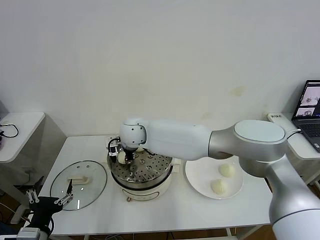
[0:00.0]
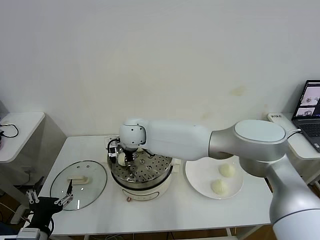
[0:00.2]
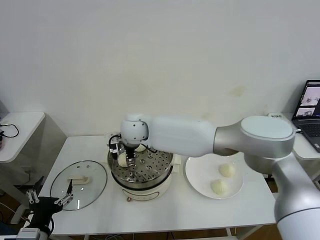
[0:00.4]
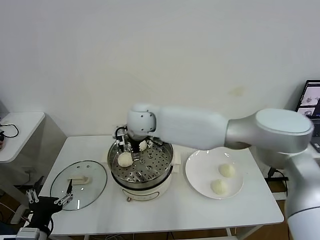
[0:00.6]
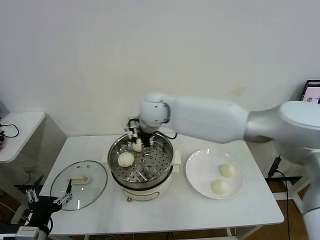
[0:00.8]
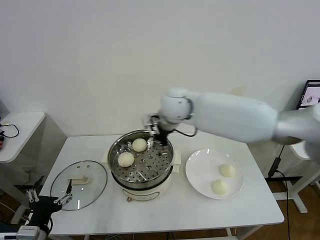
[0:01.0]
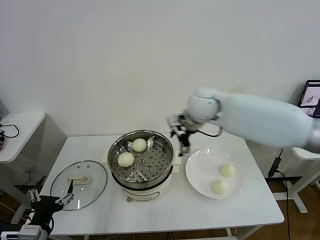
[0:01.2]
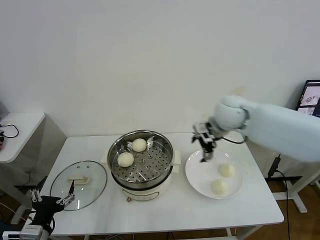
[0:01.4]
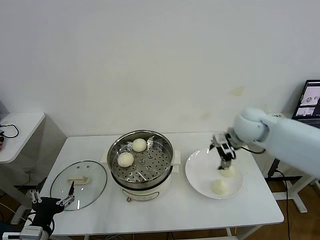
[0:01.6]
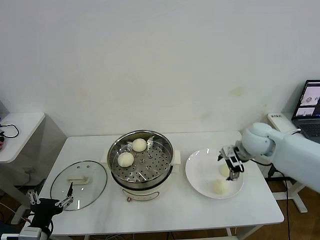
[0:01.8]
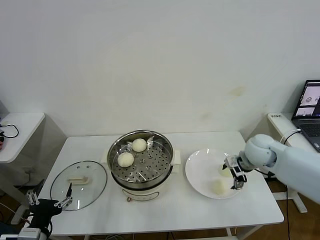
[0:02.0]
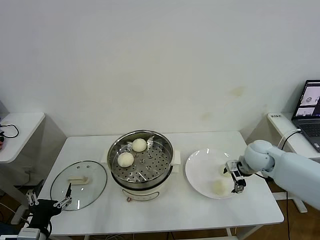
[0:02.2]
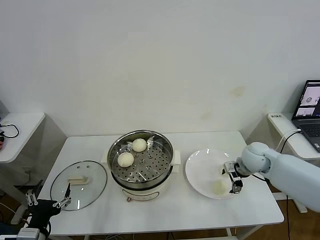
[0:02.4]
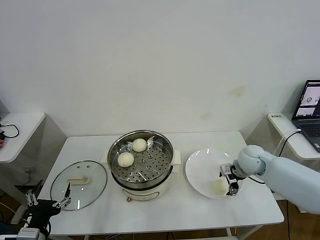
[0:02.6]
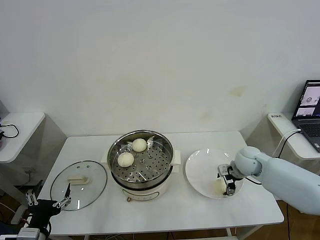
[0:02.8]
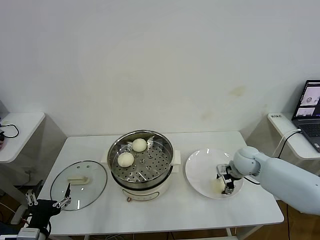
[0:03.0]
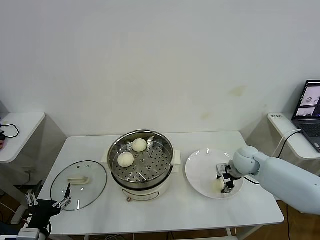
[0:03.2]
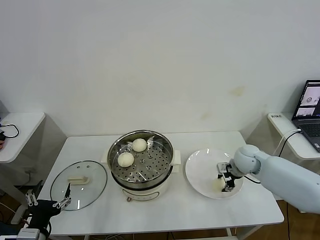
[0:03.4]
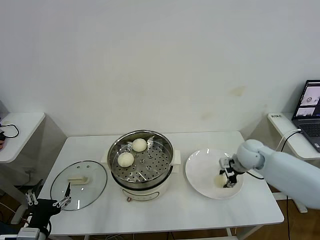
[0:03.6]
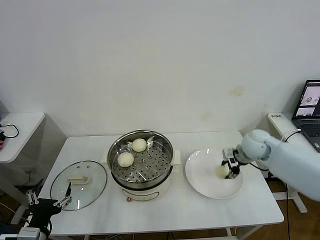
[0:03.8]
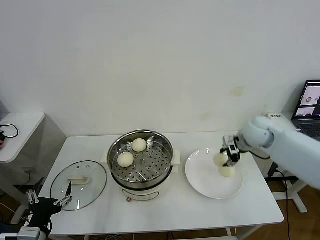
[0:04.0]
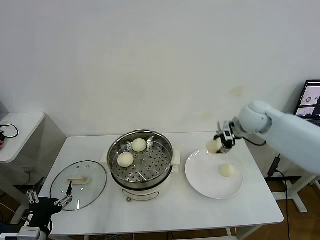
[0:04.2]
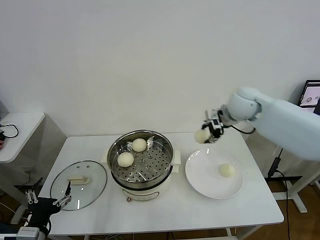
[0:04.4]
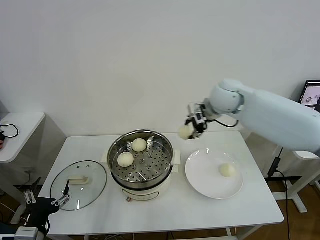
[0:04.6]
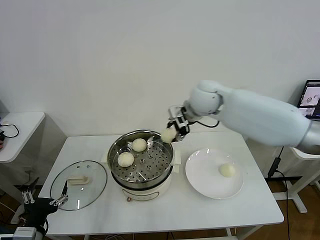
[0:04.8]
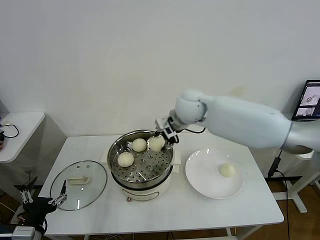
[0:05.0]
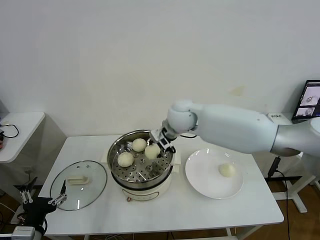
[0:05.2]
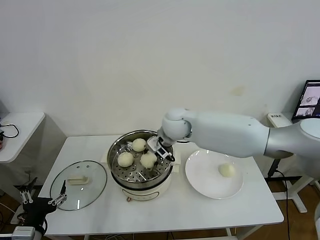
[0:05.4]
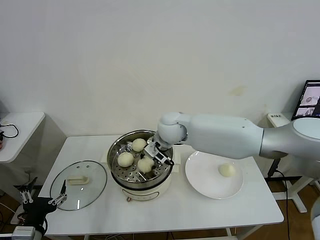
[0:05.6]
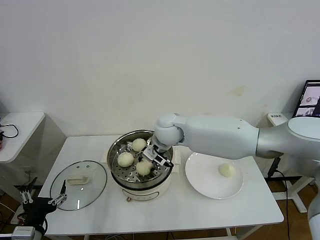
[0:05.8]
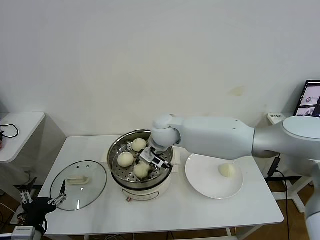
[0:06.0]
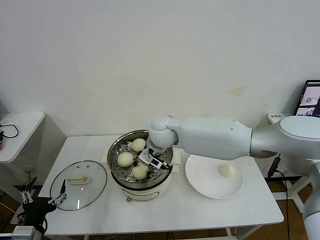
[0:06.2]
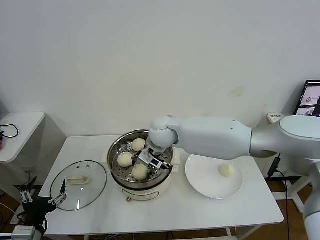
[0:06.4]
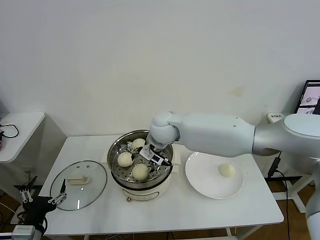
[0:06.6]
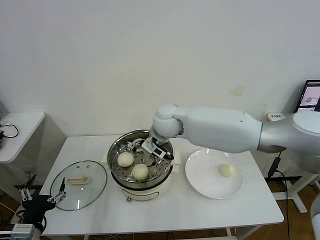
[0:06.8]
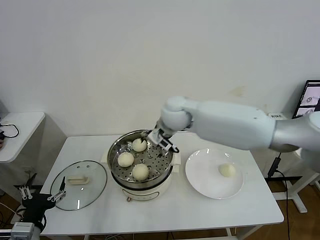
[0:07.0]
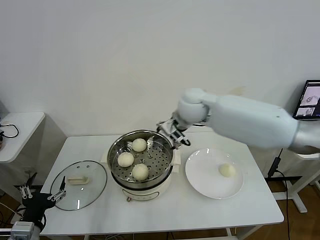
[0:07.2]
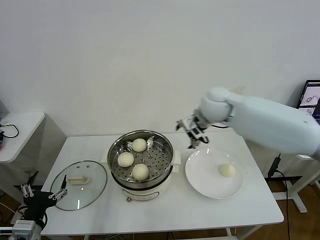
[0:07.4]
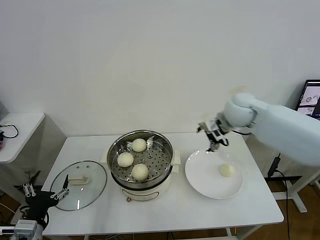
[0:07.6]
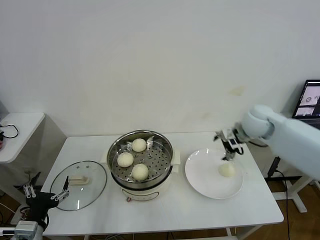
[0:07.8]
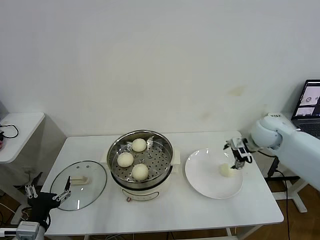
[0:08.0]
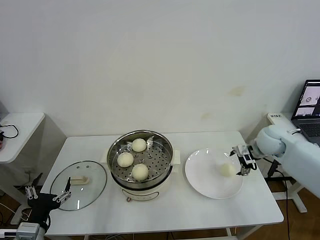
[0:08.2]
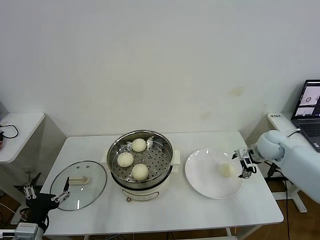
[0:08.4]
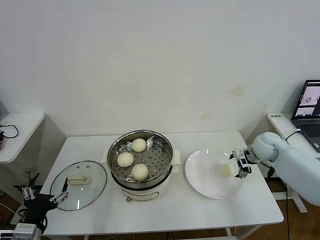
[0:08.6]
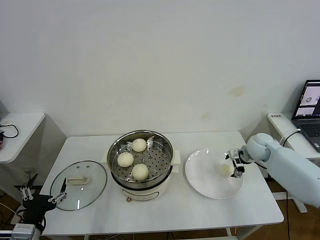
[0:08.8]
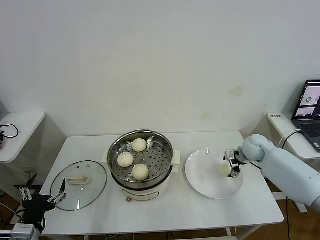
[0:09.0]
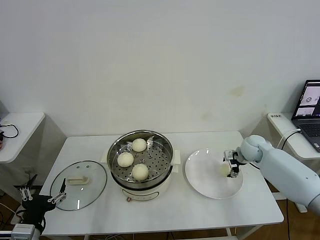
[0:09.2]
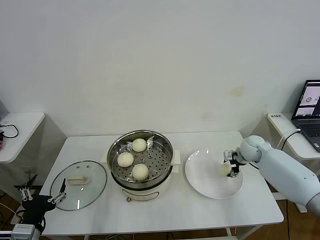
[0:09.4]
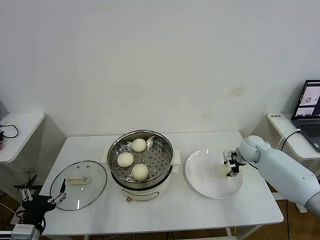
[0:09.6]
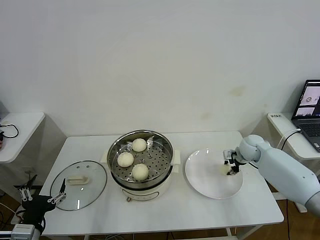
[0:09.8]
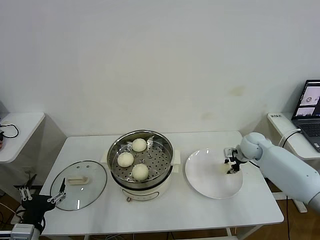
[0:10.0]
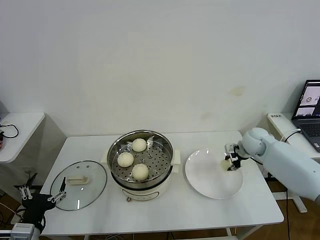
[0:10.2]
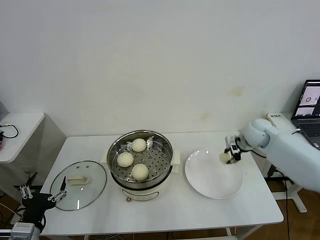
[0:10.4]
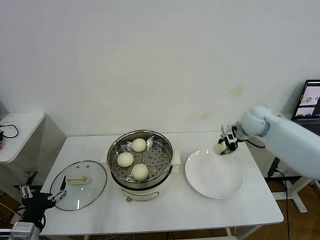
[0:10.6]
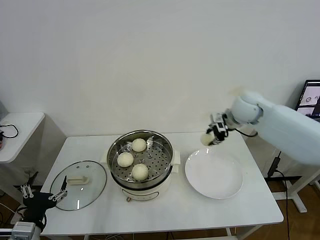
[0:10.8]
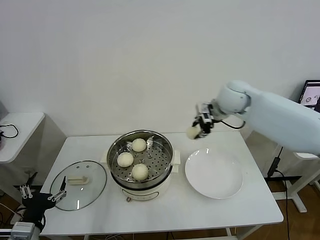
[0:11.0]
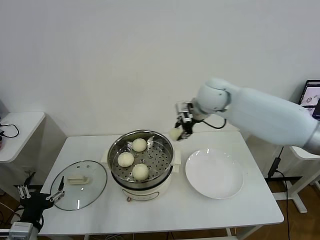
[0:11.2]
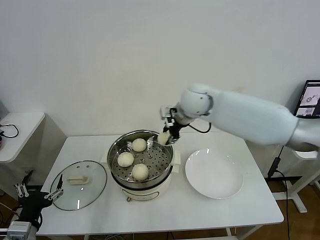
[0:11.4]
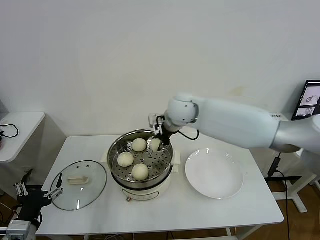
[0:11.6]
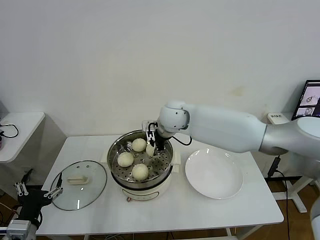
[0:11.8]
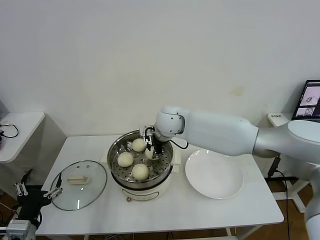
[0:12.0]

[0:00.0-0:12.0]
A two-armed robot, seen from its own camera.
Task of the whole recording: take steamed baozi put them in steamer then cover it.
Step, 0:00.6 to 0:03.2: Grasp the baozi in the plate with right gripper.
Step, 0:03.6 to 0:06.6: Place the baozi on the steamer with right gripper.
Step, 0:06.8 to 0:09.8: Grasp the baozi in the plate with right gripper.
0:00.0 to 0:01.6: The right gripper goes about 40 cm to the right, and opens.
0:01.6 to 0:03.0: The right gripper is displaced downward by approximately 15 cm, and closes up.
0:03.0 to 0:04.4: The right gripper moves upward, approximately 20 cm.
0:04.4 to 0:06.0: The right gripper is displaced to the left and downward by approximately 25 cm.
0:06.0 to 0:07.6: The right gripper shifts about 25 cm to the right, and opens up.
0:07.6 to 0:09.0: The right gripper moves downward and to the right, about 20 cm.
0:09.0 to 0:10.4: The right gripper shifts roughly 10 cm upward, and closes.
0:10.4 to 0:12.0: The right gripper goes about 30 cm to the left.

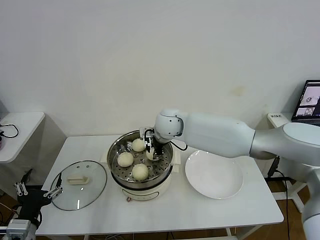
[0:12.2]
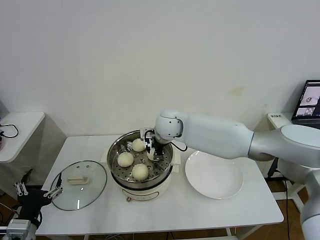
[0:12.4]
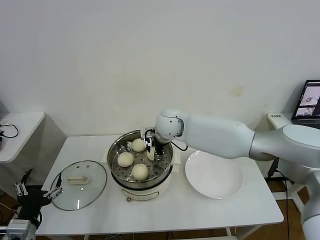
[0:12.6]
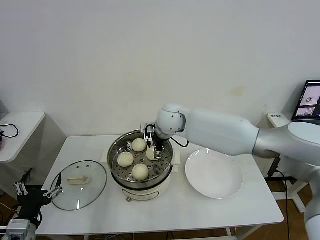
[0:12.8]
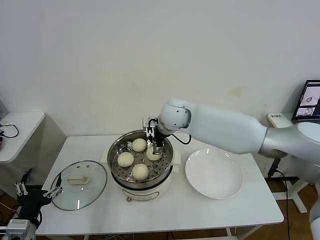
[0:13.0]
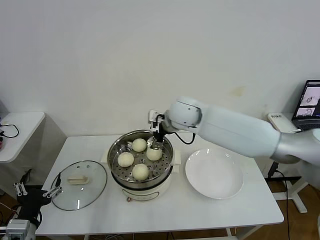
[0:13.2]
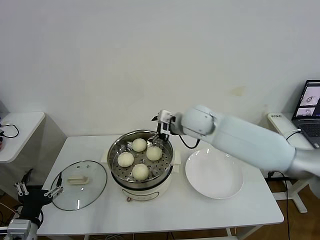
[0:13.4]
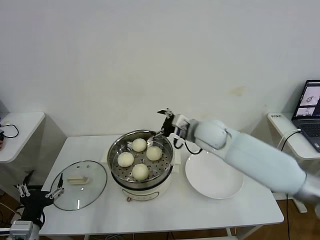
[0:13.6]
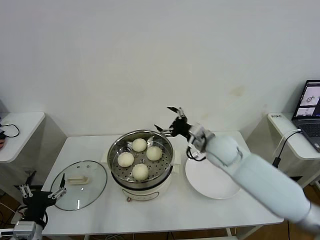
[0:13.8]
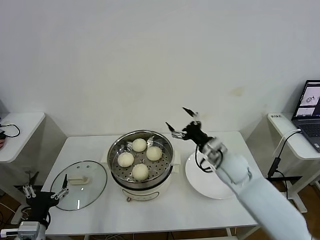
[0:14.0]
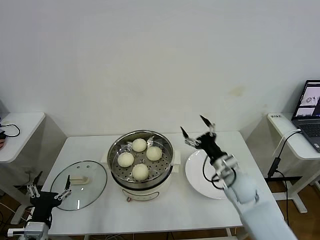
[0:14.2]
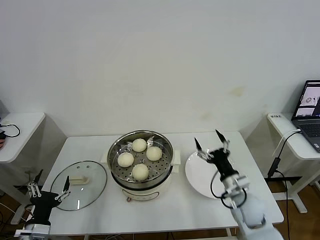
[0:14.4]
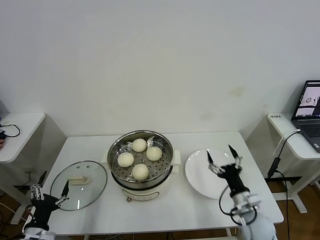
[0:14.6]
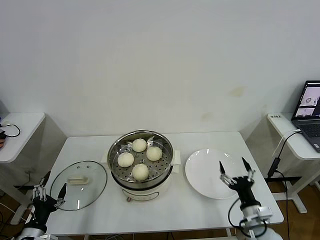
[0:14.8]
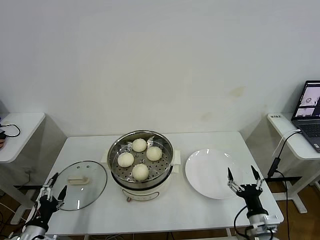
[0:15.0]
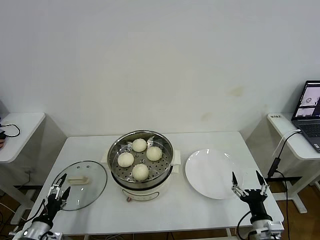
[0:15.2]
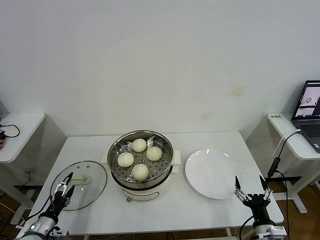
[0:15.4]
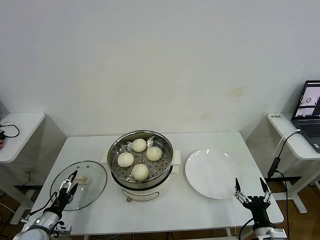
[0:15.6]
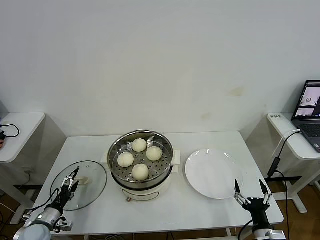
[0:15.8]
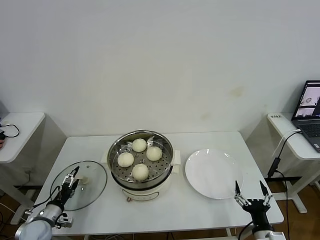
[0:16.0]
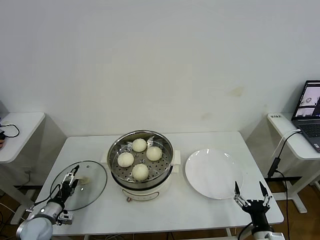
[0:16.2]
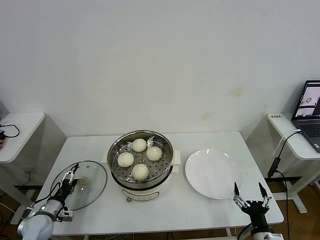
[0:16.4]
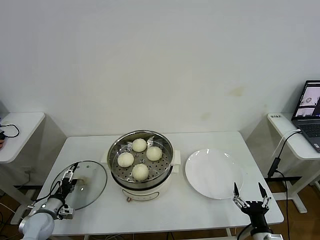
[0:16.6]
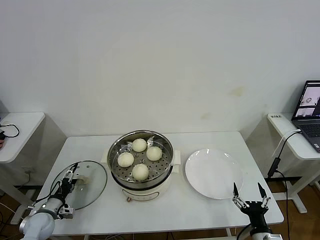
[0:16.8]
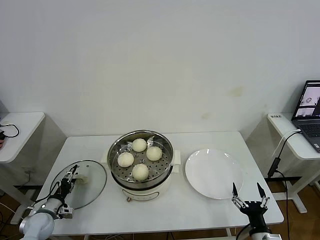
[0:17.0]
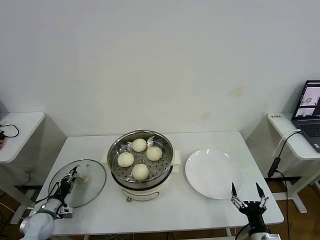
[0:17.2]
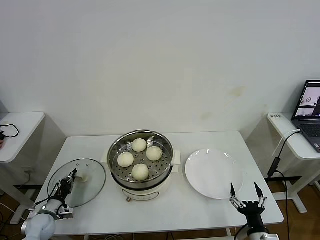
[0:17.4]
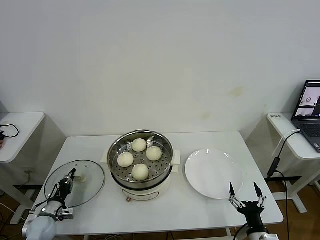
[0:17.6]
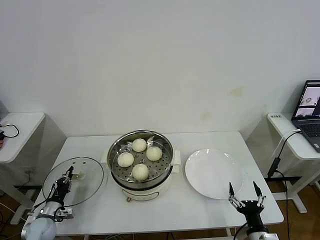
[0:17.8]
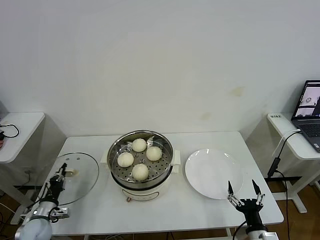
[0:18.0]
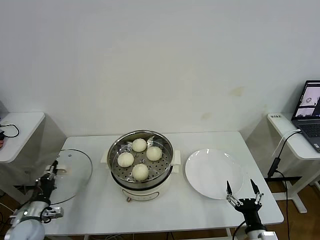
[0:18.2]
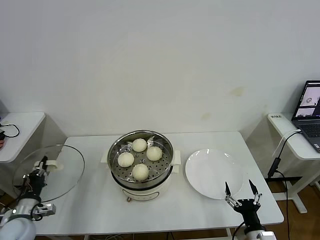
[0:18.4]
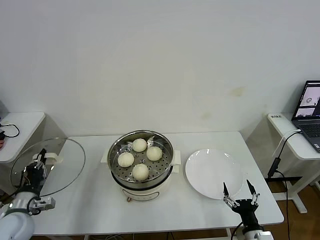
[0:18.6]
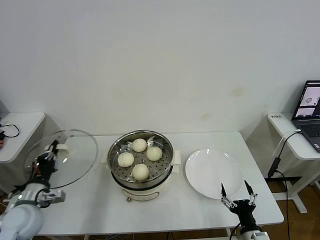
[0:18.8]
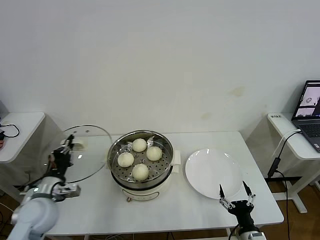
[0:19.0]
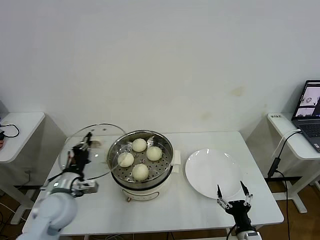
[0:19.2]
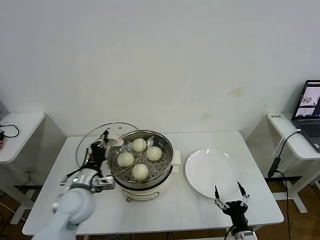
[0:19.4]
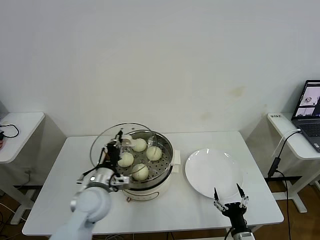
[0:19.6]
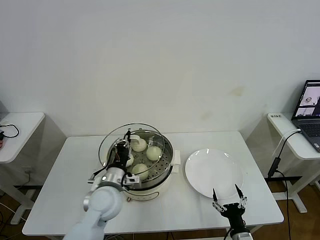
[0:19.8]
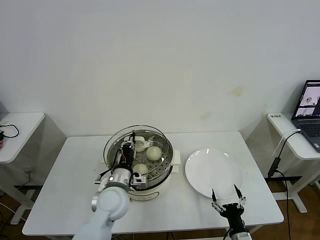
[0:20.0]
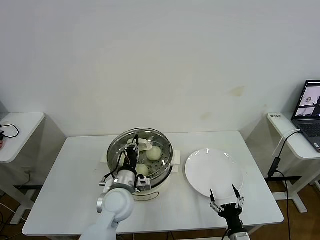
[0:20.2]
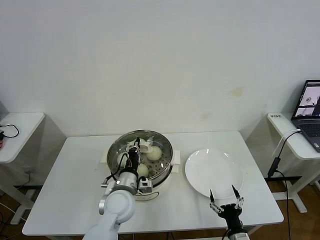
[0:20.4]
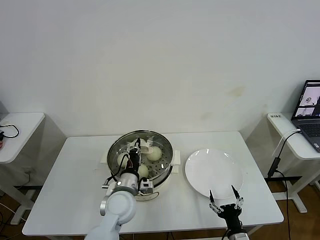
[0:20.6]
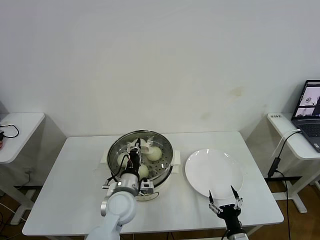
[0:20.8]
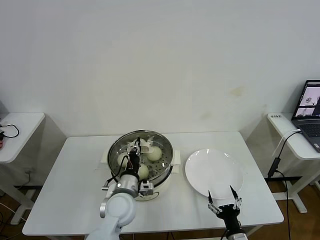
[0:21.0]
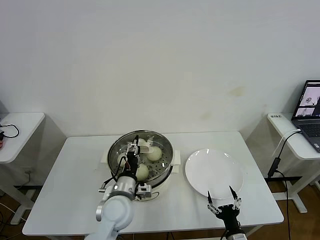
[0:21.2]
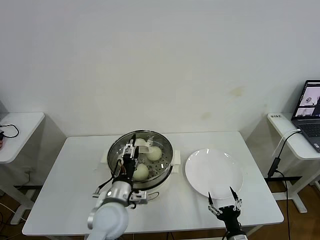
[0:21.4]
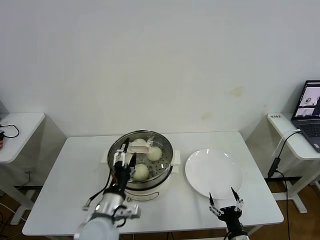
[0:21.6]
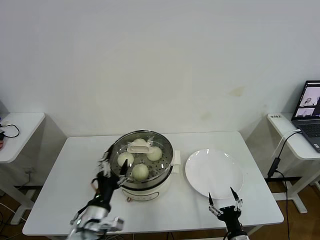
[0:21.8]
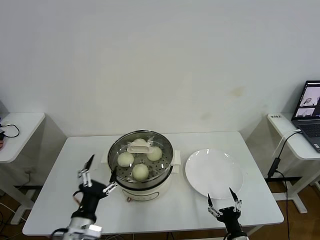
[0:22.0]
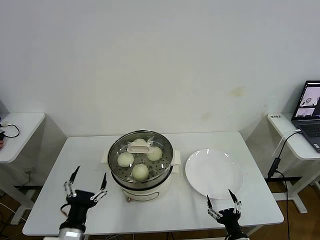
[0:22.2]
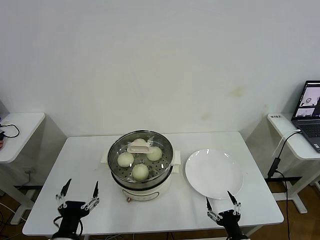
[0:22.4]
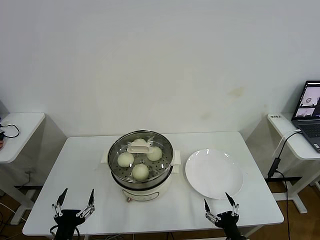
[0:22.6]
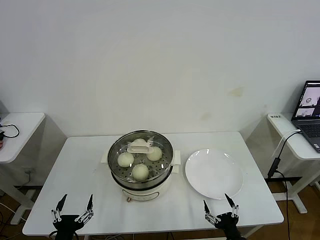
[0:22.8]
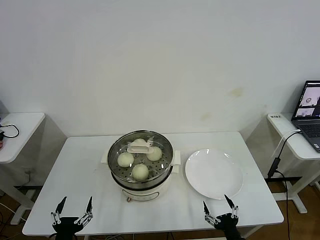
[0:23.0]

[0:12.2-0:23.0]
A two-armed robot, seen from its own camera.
Task of the whole recording: take steamed baozi put them in steamer then cover it.
Step, 0:13.0 to 0:17.6: Grasp the pot lid with left gripper.
Step, 0:17.8 to 0:21.4: Place the pot lid on the steamer with left gripper.
0:12.2 to 0:13.8: The right gripper moves to the right and backward, approximately 20 cm, and opens up.
0:13.8 to 0:15.2: The left gripper goes some 15 cm downward and to the left; the right gripper shifts about 35 cm backward, downward and to the right.
0:15.2 to 0:16.8: The left gripper goes some 10 cm forward.
0:16.8 to 0:18.4: The left gripper goes roughly 10 cm upward, and closes.
0:18.4 to 0:20.0: The left gripper goes about 30 cm to the right.
0:20.0 to 0:21.4: The left gripper opens.
0:21.4 to 0:23.0: The left gripper travels backward and to the left by roughly 25 cm.
